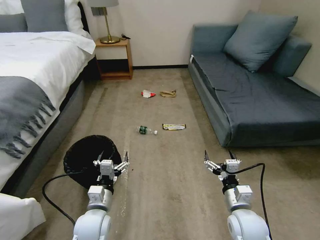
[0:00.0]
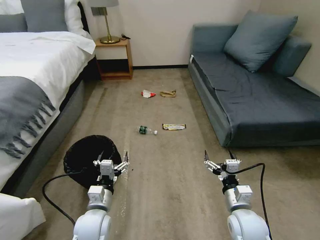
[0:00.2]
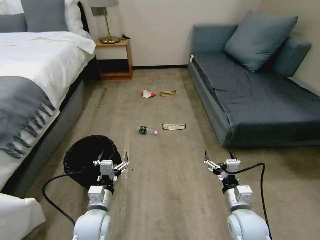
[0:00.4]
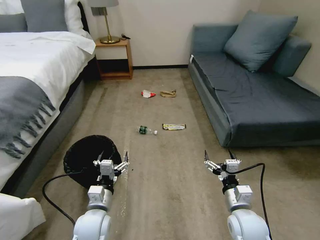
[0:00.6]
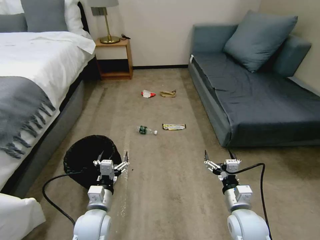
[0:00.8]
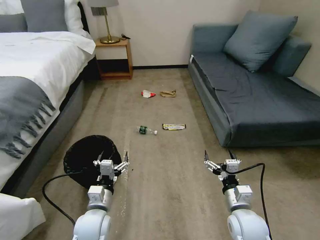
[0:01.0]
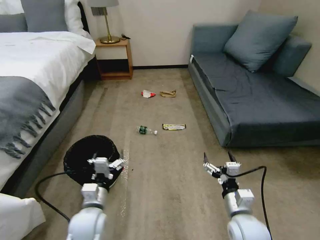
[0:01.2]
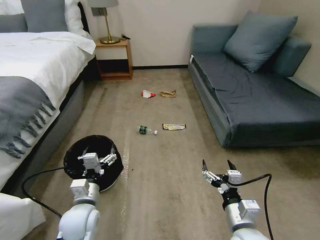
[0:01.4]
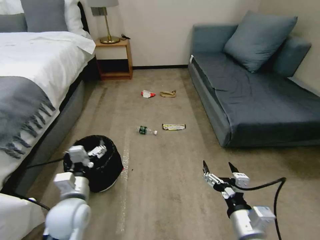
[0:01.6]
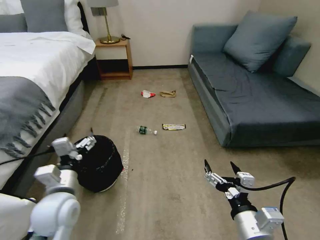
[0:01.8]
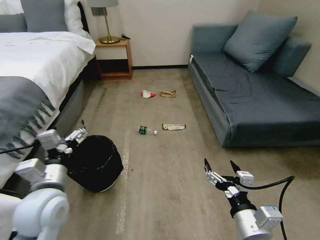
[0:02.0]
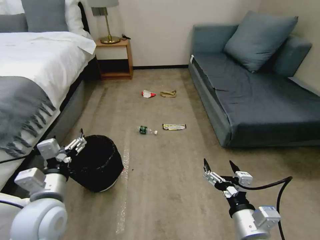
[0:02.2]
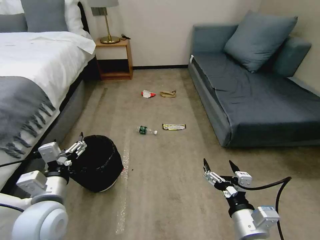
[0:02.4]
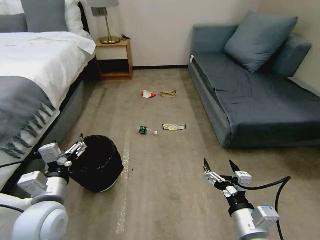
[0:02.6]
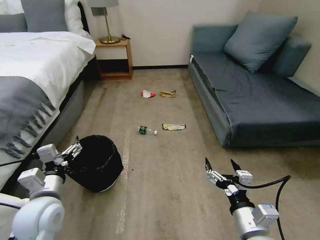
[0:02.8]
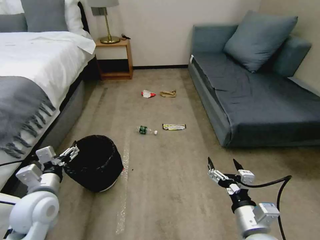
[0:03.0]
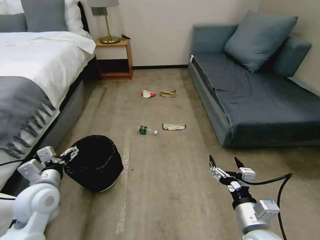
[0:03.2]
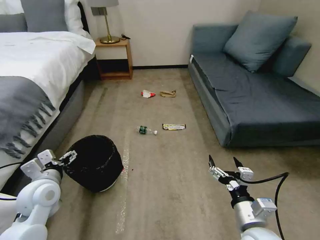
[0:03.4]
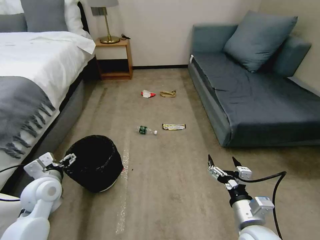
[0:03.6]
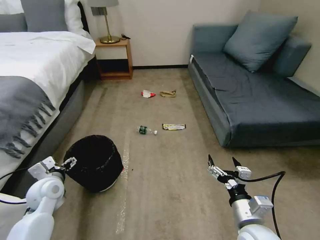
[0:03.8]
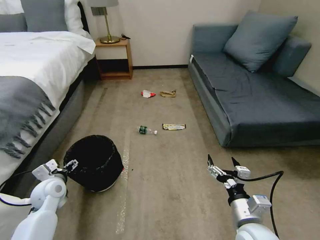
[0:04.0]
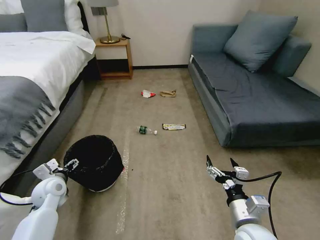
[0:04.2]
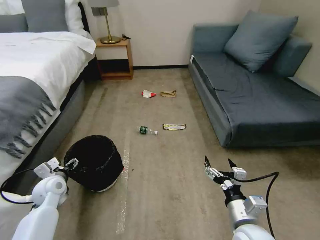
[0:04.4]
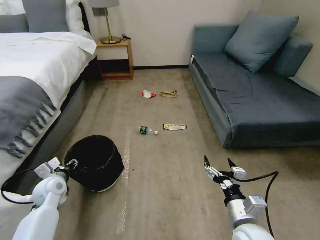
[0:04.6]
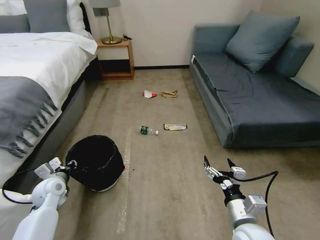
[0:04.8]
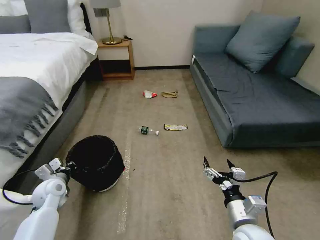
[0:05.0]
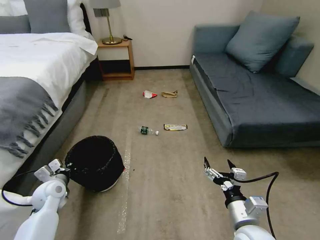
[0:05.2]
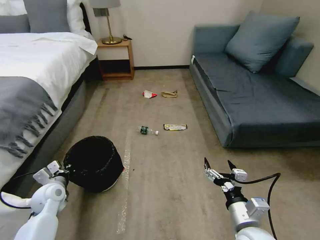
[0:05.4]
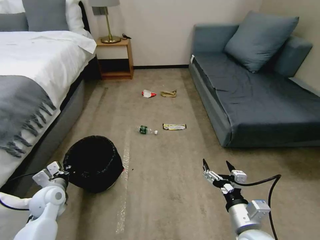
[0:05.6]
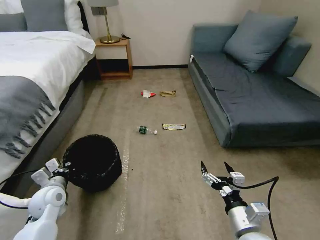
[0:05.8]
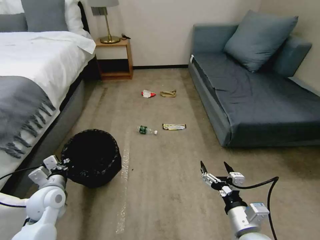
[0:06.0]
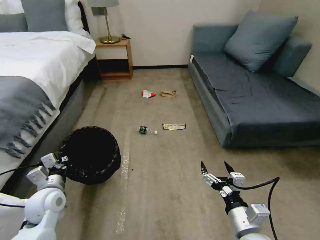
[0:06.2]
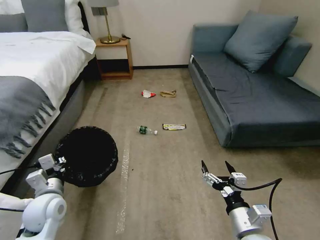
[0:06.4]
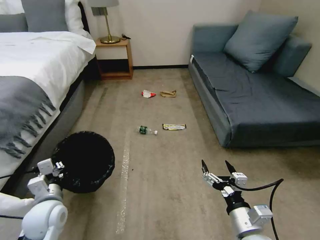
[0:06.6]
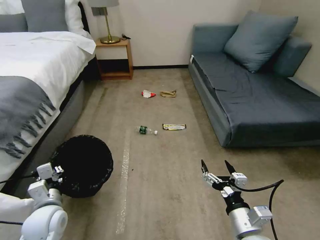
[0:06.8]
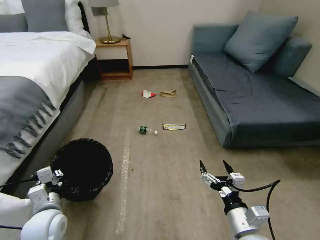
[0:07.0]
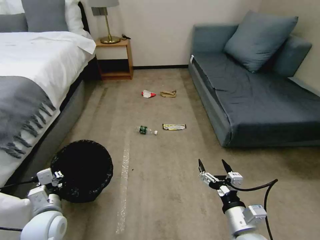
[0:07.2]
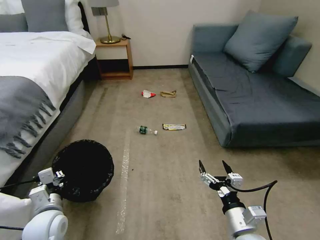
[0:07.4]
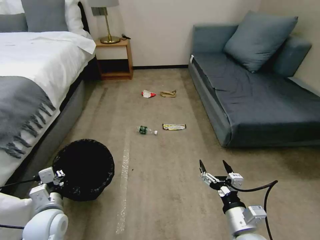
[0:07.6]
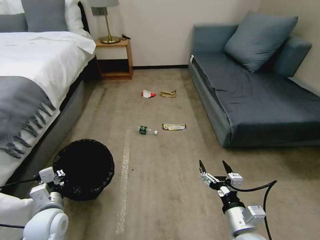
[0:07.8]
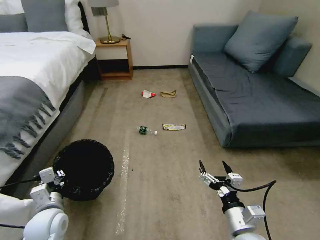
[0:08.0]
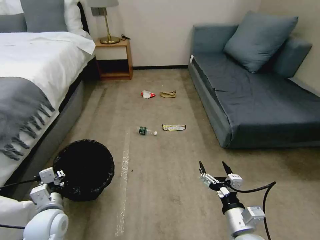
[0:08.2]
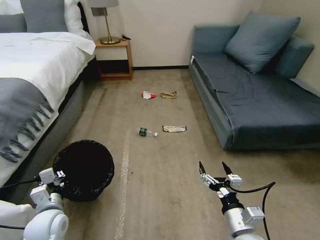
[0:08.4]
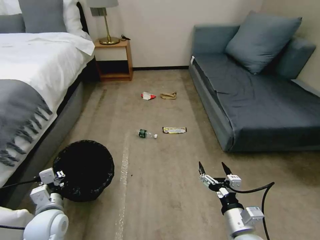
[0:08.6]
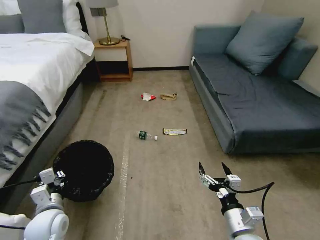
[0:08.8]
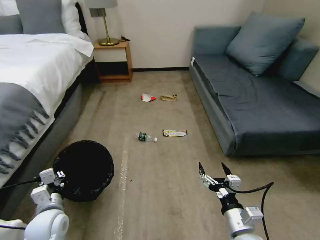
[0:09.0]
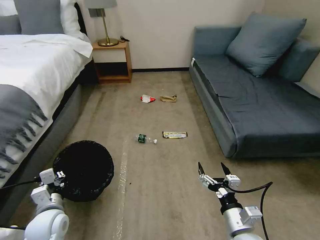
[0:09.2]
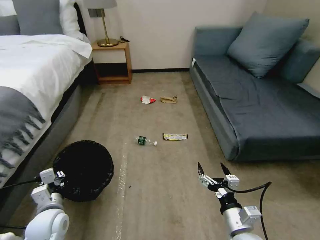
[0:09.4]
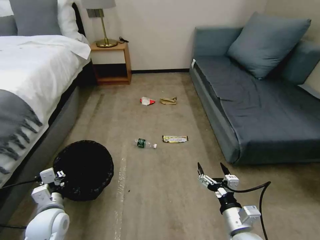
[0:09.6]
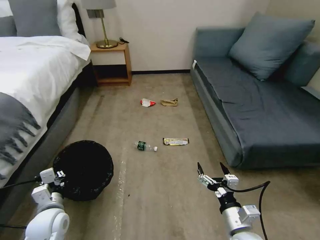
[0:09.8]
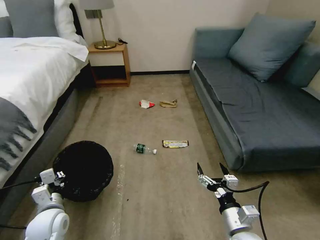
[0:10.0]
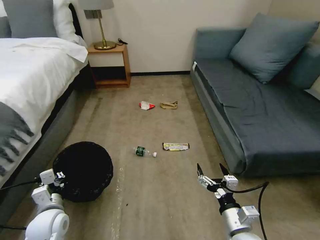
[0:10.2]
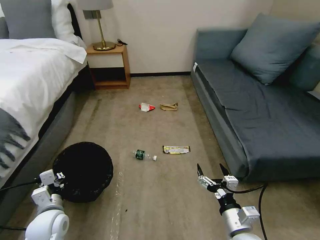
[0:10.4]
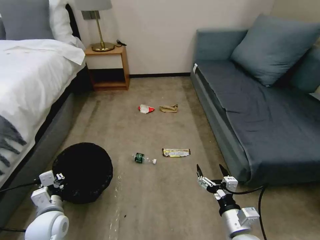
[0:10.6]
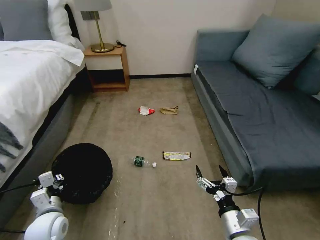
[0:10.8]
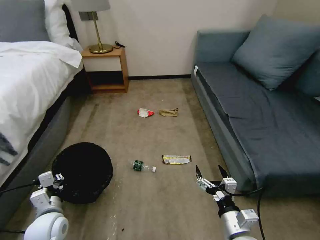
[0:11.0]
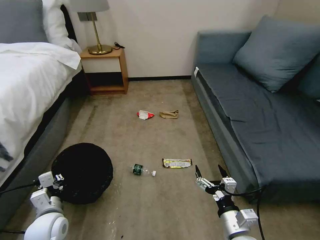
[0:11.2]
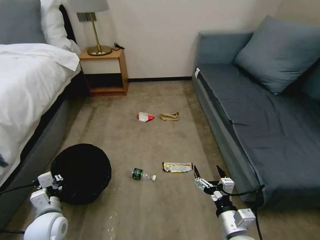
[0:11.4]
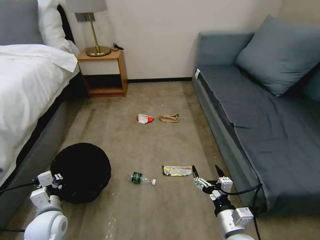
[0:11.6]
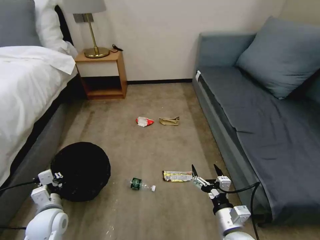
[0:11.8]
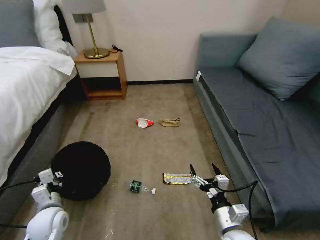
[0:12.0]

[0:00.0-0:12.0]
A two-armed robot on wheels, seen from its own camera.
Task of the whole recording: Pick up the trash bin, then pick up the garbage on the floor and place it into the trash bin.
0:01.6 to 0:03.0: The left gripper travels to the left by some 10 cm.
0:03.0 to 0:04.4: The left gripper heads downward, forward and to the left, covering approximately 15 cm.
0:04.4 to 0:06.0: The left gripper moves some 5 cm, and closes its fingers.
0:06.0 to 0:07.6: The left gripper goes about 5 cm backward.
0:07.6 to 0:09.0: Both grippers stay put.

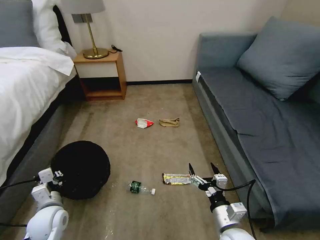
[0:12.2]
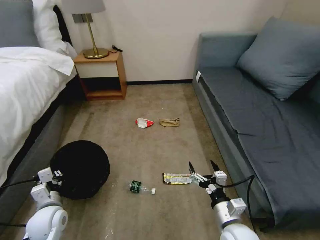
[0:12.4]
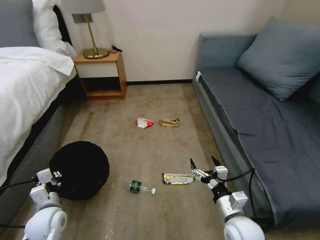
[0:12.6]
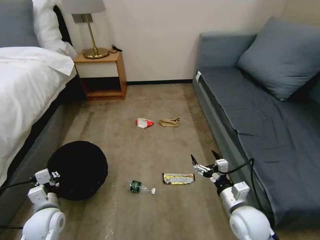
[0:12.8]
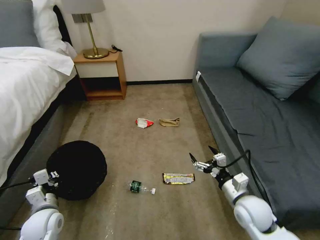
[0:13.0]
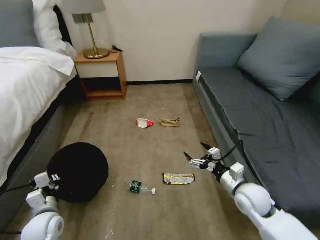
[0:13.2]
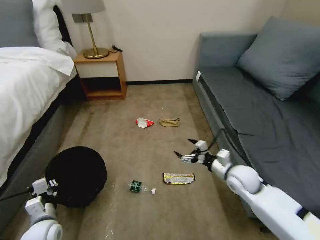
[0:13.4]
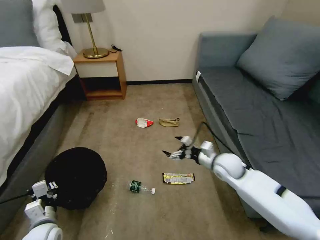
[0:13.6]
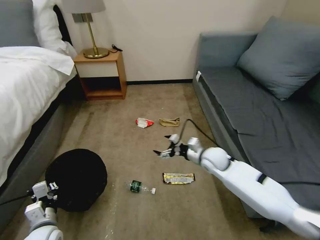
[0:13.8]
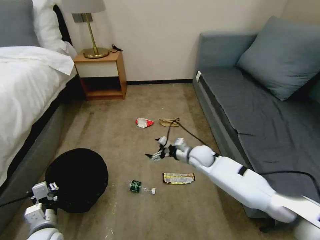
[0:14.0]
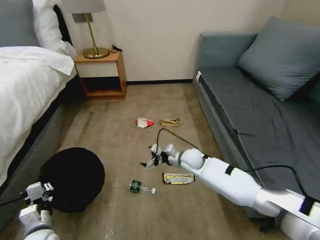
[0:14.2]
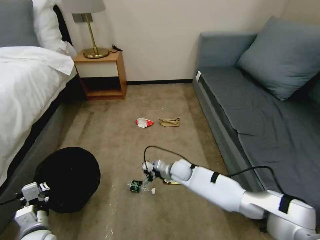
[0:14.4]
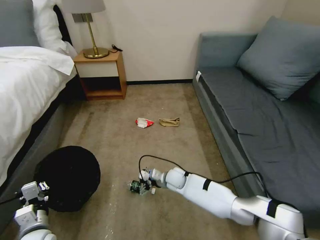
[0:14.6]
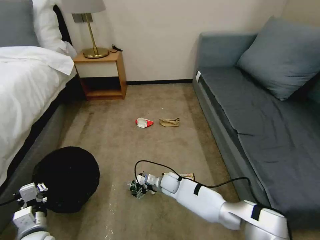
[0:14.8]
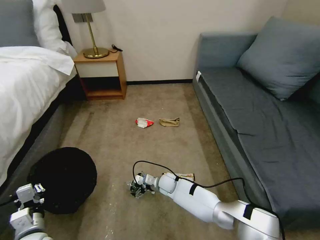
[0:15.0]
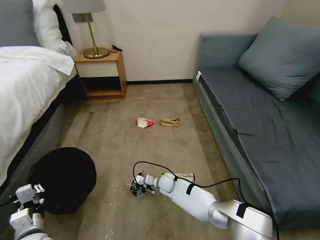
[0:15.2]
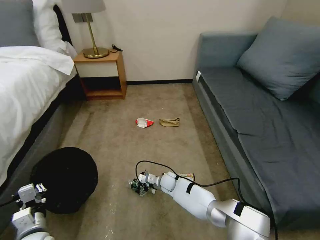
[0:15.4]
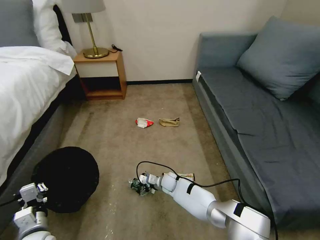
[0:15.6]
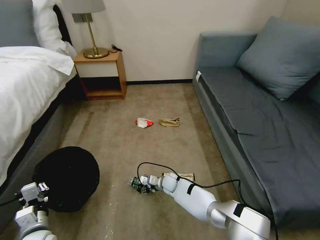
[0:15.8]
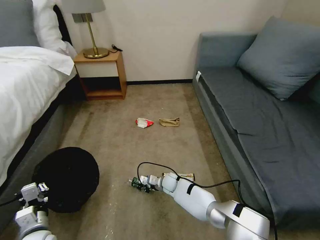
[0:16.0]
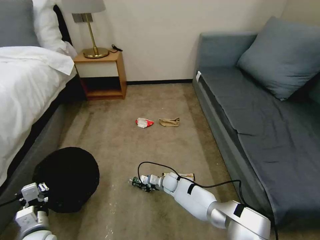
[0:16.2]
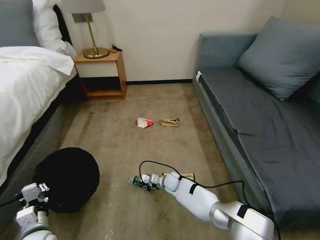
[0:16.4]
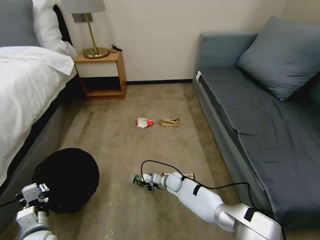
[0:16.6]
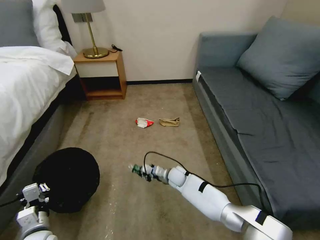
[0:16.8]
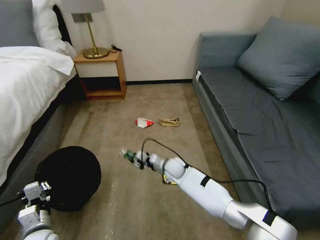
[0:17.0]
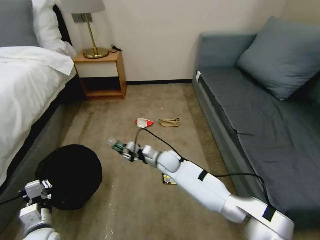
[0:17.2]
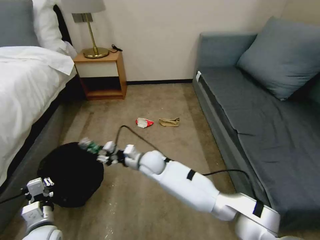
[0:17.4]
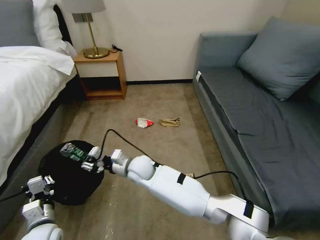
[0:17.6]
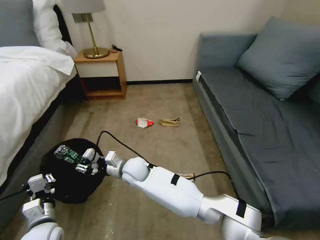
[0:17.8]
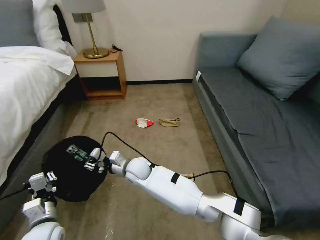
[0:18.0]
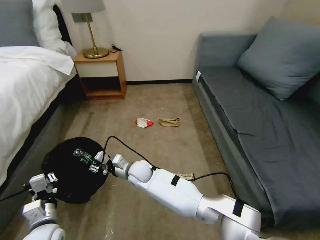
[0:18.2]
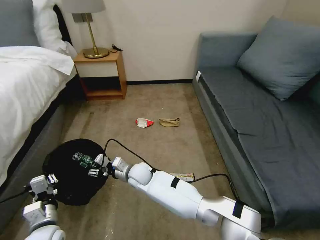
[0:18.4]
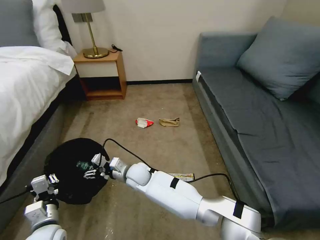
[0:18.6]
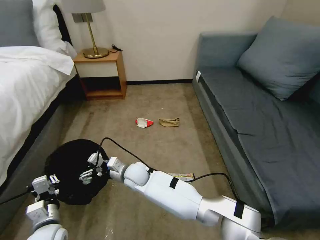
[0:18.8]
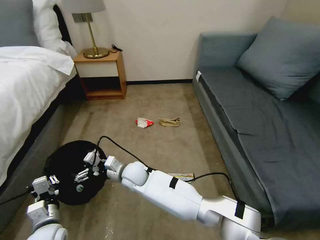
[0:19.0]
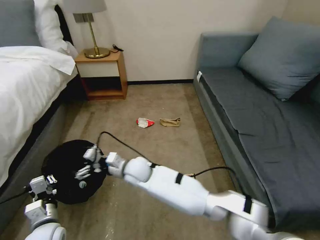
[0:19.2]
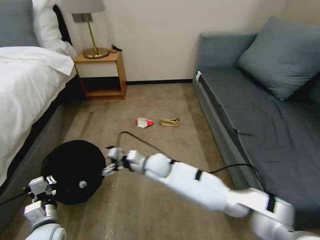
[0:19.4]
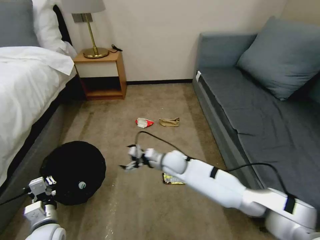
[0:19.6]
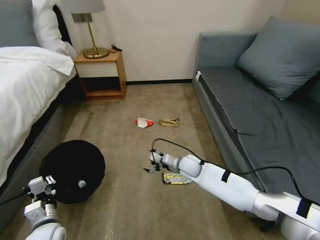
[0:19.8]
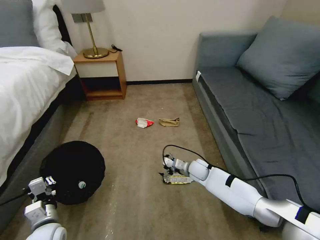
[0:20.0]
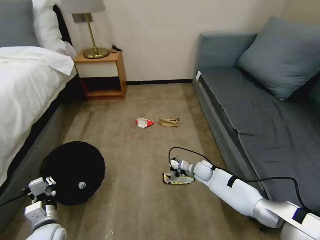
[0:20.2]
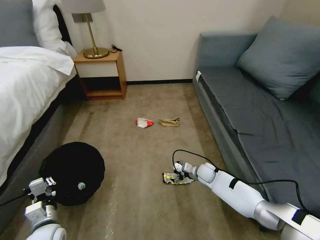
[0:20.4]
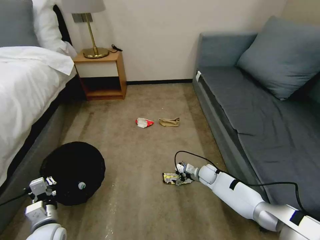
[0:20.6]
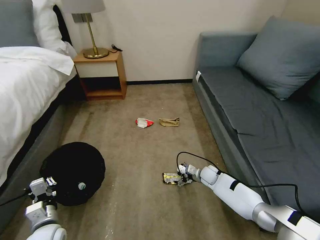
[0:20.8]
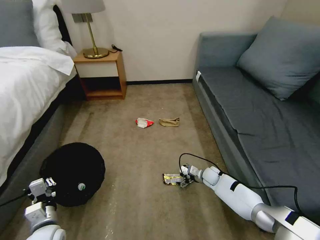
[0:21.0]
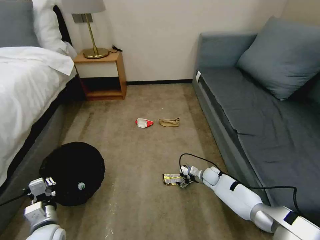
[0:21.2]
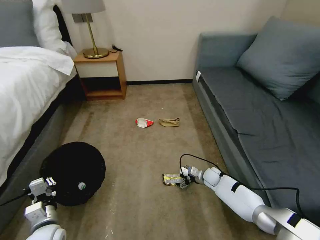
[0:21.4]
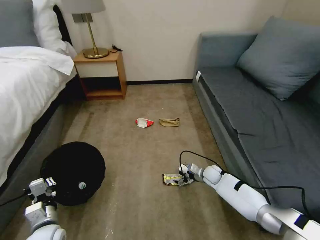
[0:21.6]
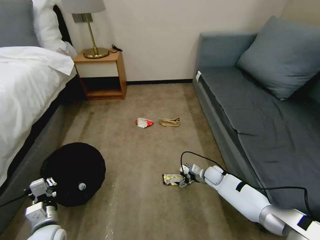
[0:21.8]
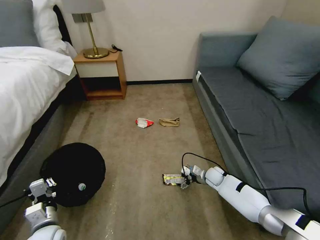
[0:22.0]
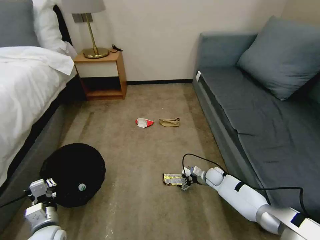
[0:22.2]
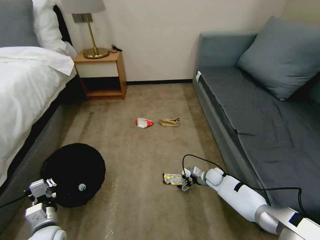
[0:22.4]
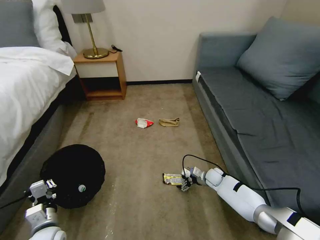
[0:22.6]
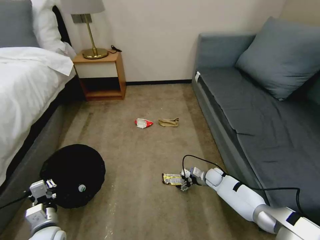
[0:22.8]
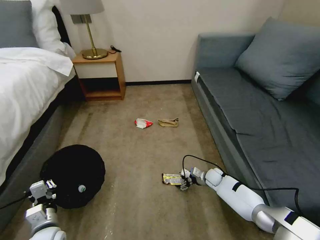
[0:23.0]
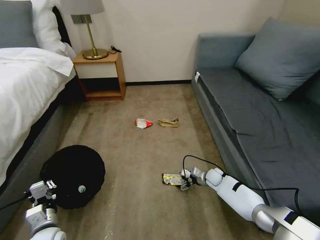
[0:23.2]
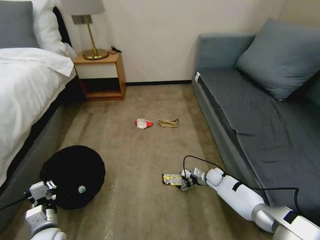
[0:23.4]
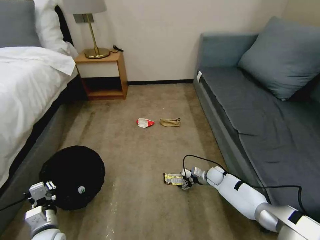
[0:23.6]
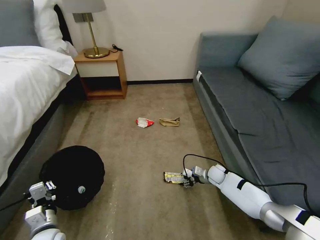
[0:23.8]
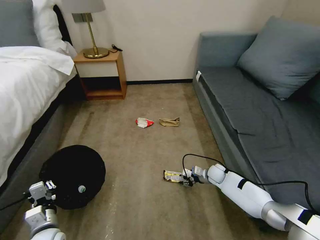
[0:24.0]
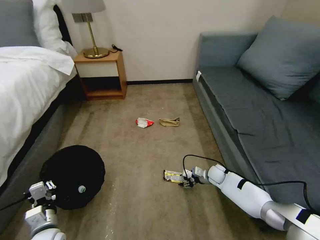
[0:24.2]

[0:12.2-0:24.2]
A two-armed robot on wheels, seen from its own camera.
Task of the whole recording: Pick up the trash bin, then pick up the garbage on the floor and place it into the trash bin.
0:12.2 to 0:13.8: The left gripper moves about 5 cm. Meanwhile the right gripper heads forward, covering some 25 cm.
0:13.8 to 0:15.2: The right gripper travels downward and to the left by about 25 cm.
0:15.2 to 0:16.6: The right gripper closes.
0:16.6 to 0:18.2: The right gripper travels to the left and upward by roughly 20 cm.
0:18.2 to 0:19.8: The right gripper heads to the right, covering roughly 20 cm, and opens up.
0:19.8 to 0:21.2: The right gripper goes approximately 20 cm to the right and downward.
0:21.2 to 0:22.6: The grippers move only a little.
0:22.6 to 0:24.2: The right gripper closes up.
